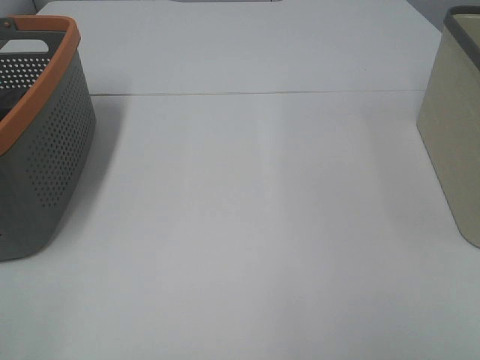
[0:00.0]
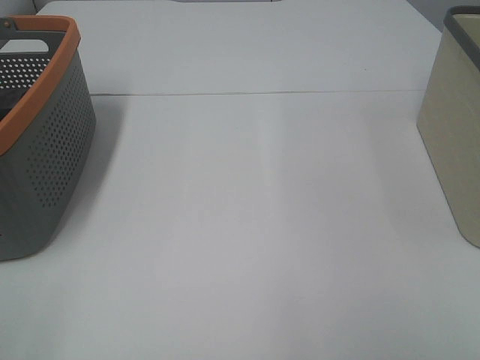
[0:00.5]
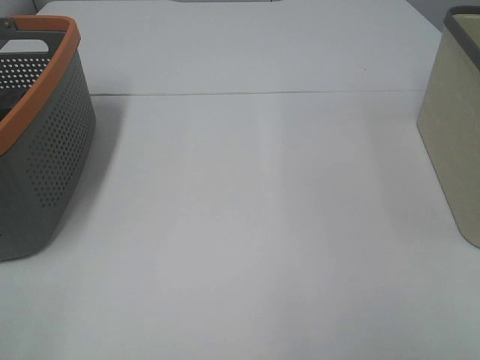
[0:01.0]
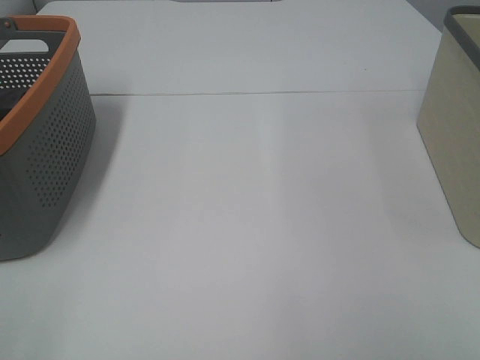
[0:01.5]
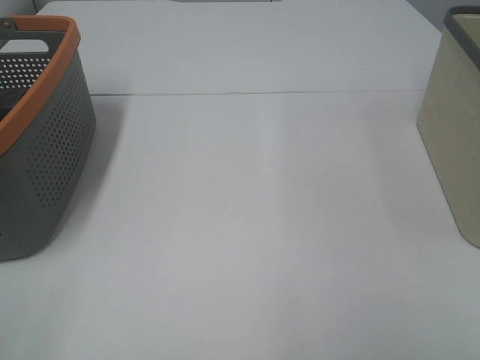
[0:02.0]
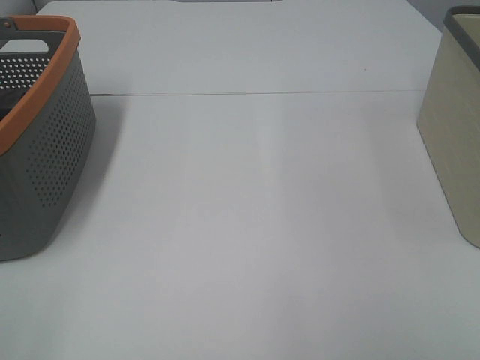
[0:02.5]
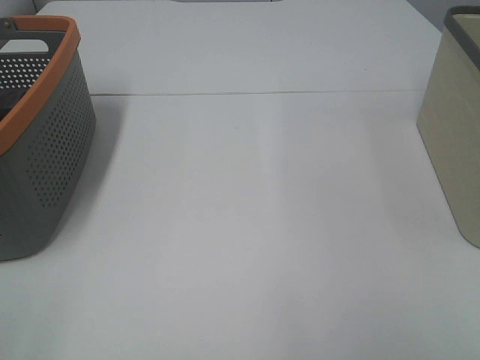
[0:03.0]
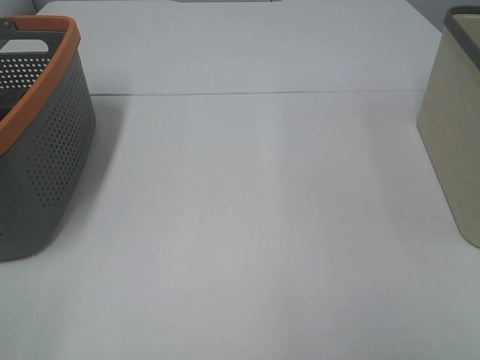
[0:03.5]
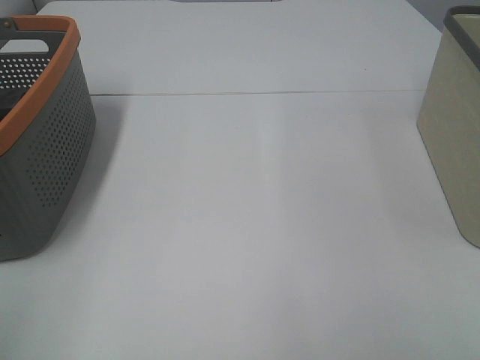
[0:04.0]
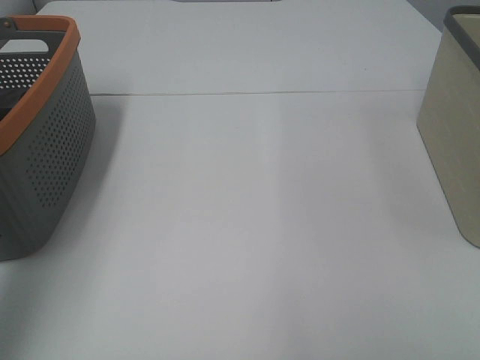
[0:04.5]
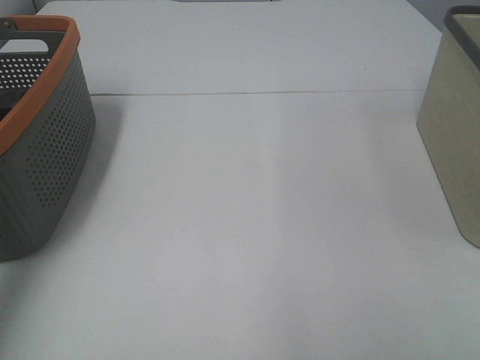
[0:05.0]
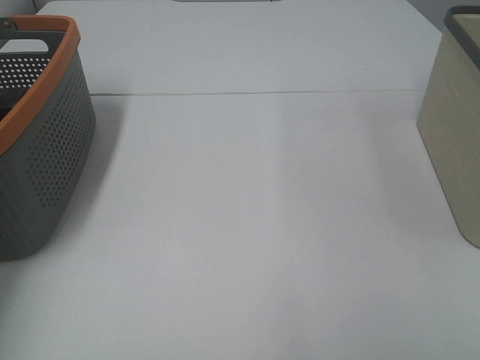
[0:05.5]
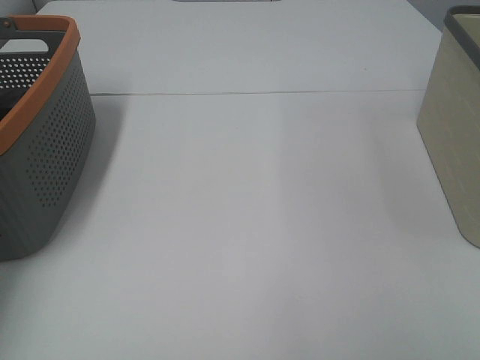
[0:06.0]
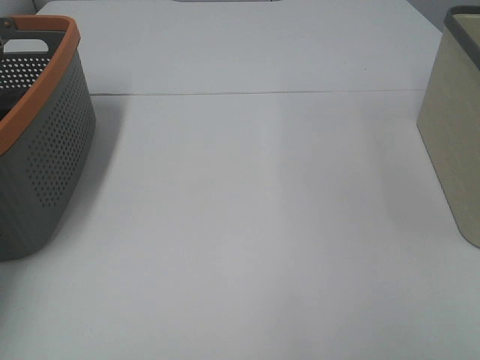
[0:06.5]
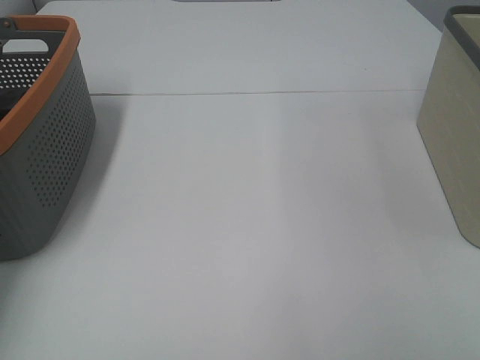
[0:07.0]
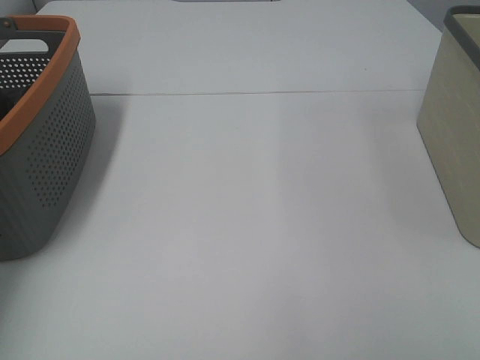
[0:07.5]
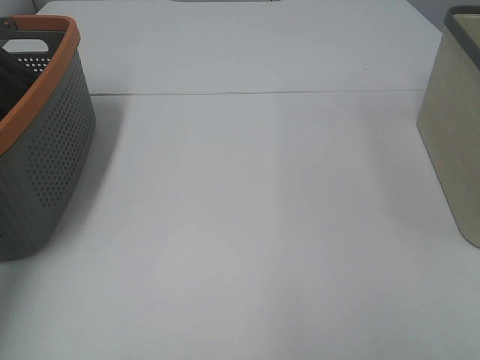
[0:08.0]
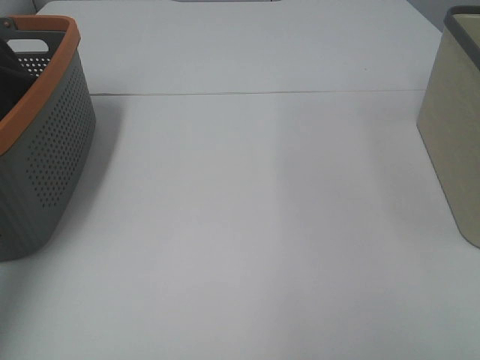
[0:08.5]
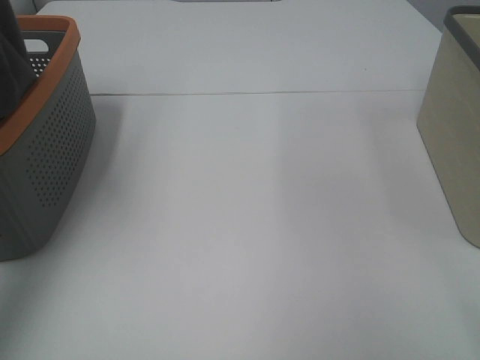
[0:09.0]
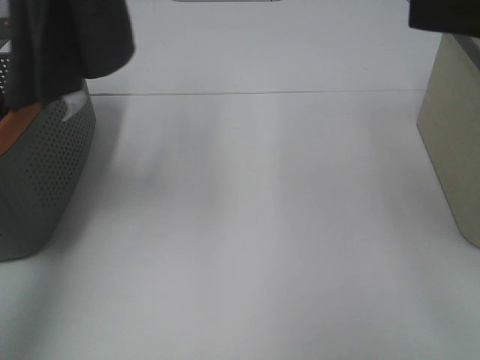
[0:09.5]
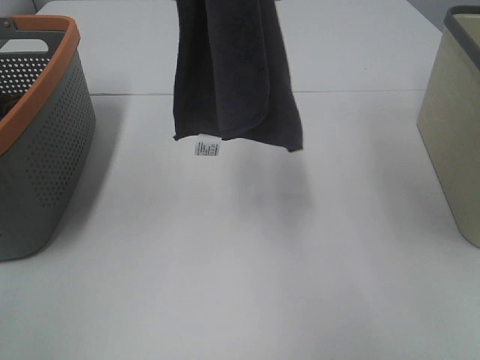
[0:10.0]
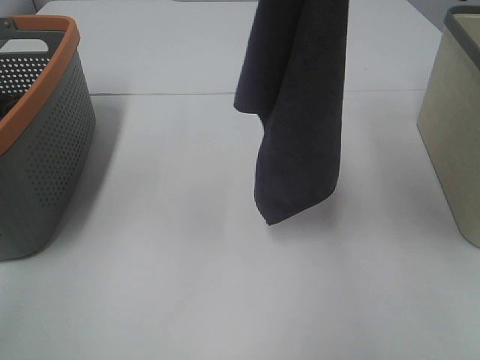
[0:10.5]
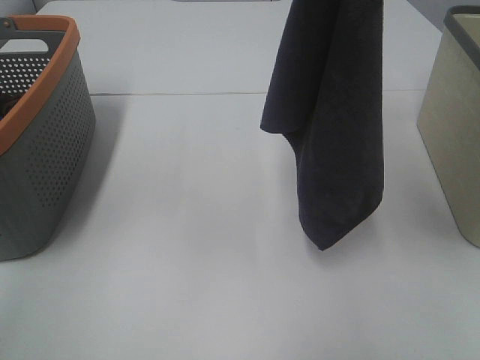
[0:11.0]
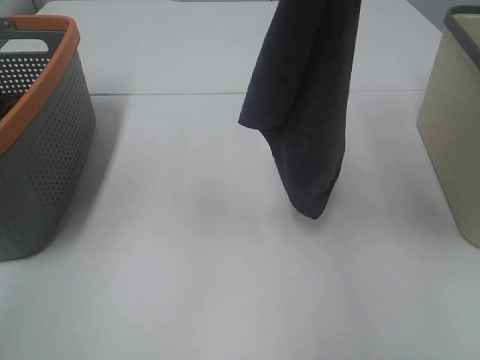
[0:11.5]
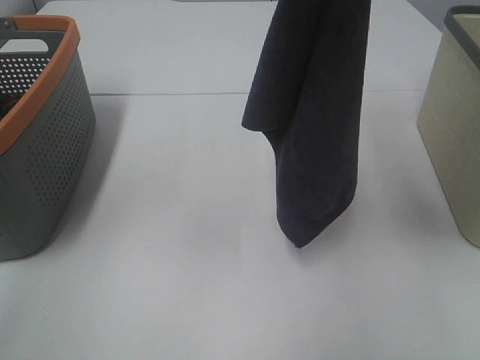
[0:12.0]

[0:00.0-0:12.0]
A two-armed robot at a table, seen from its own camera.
Task of the whole recording: Remove the towel and place it.
0:00.0 to 0:02.0: The two grippers keep their place.
0:08.0 to 0:10.0: The right gripper travels forward by approximately 25 cm; the left gripper is displaced to the right by about 25 cm.
0:10.0 to 0:12.0: The left gripper goes about 10 cm to the right.

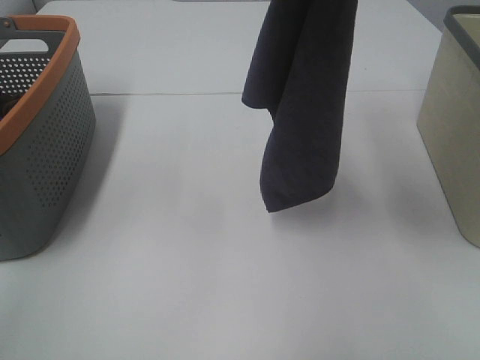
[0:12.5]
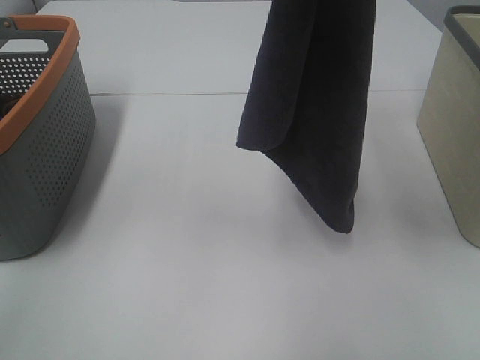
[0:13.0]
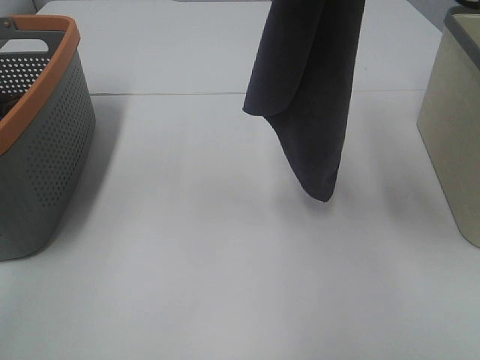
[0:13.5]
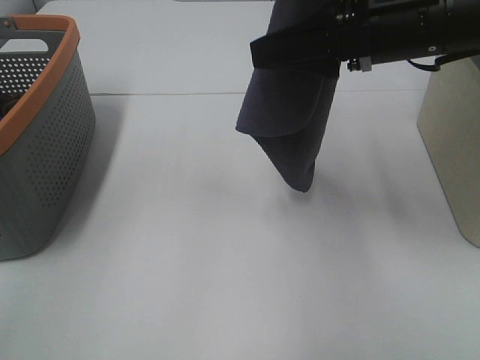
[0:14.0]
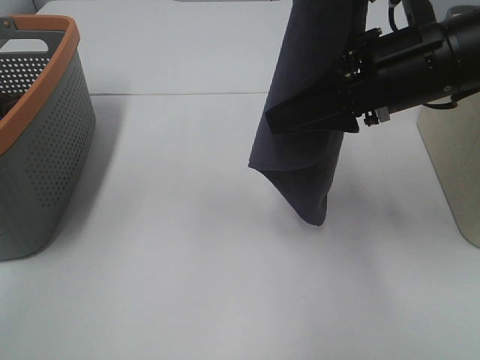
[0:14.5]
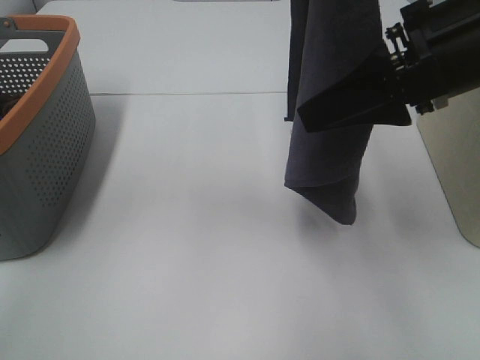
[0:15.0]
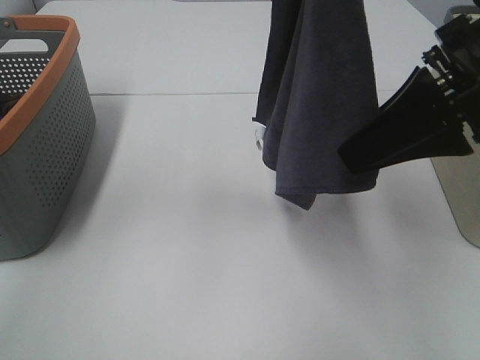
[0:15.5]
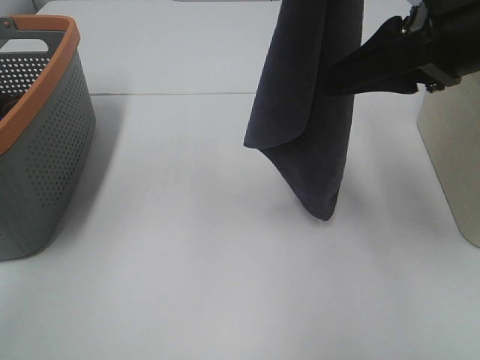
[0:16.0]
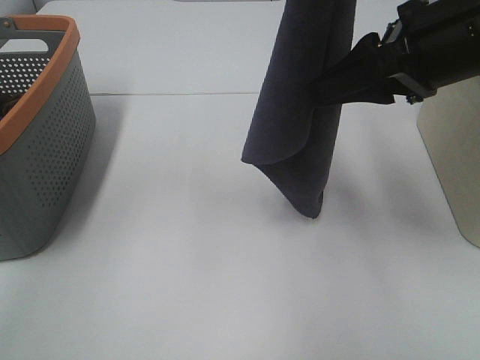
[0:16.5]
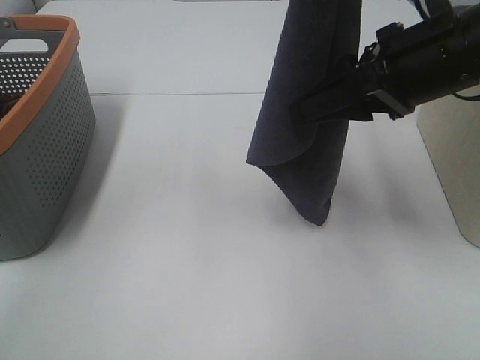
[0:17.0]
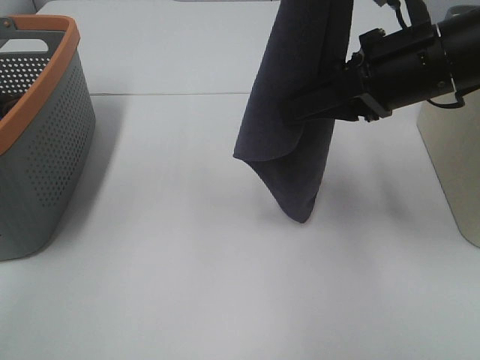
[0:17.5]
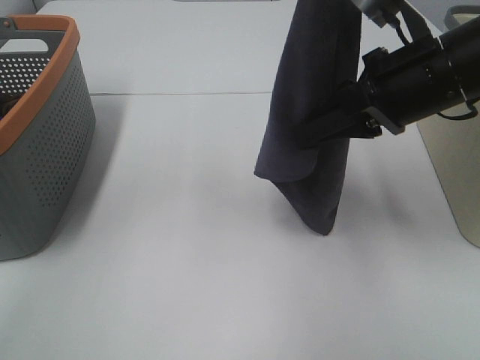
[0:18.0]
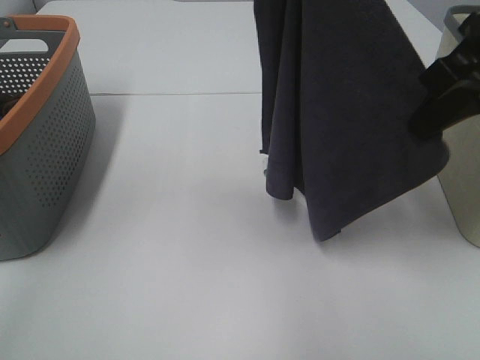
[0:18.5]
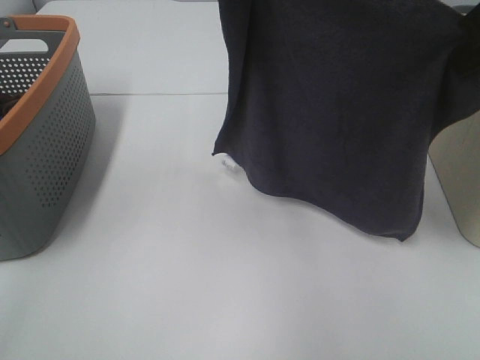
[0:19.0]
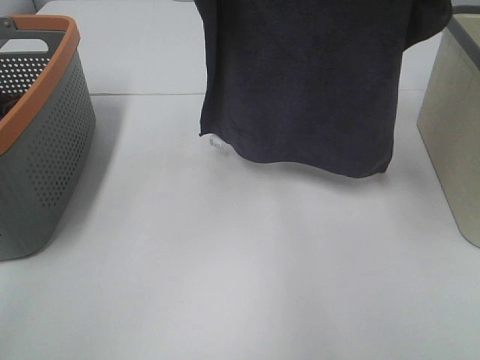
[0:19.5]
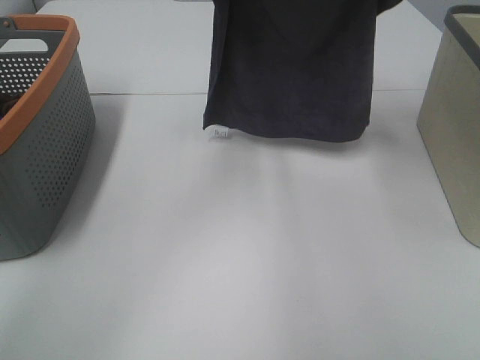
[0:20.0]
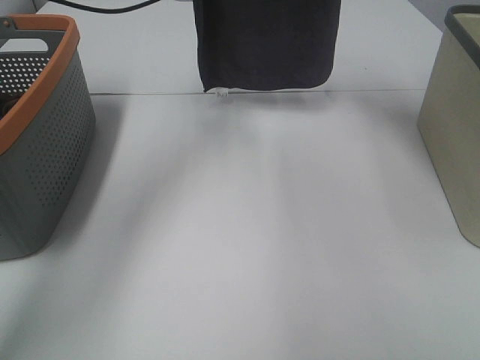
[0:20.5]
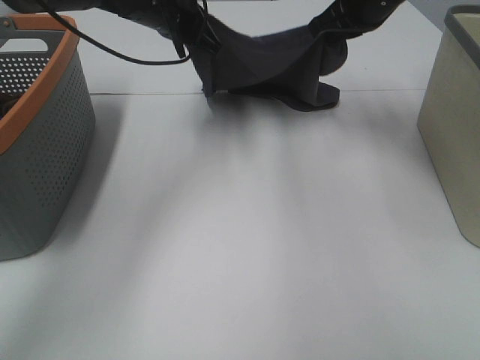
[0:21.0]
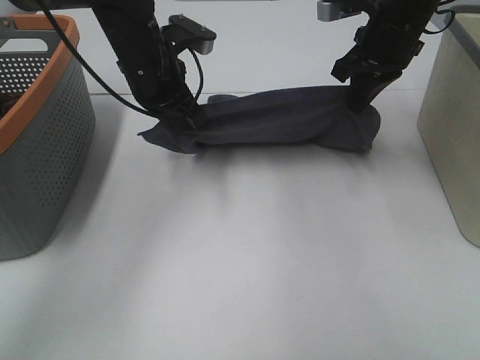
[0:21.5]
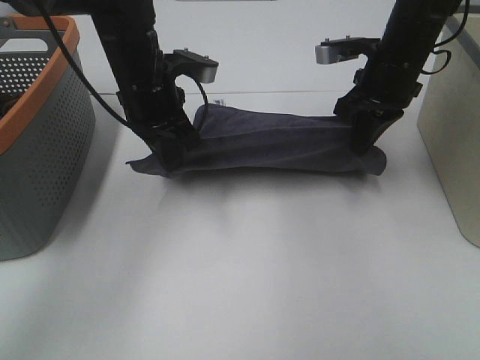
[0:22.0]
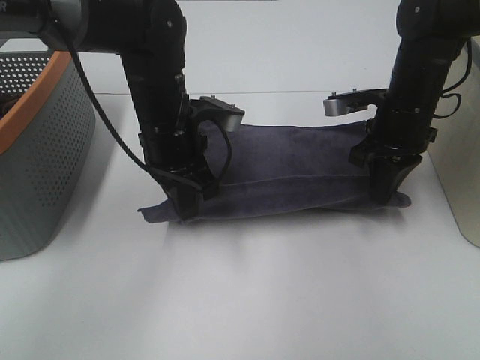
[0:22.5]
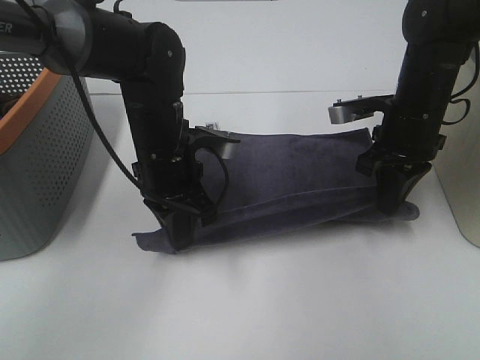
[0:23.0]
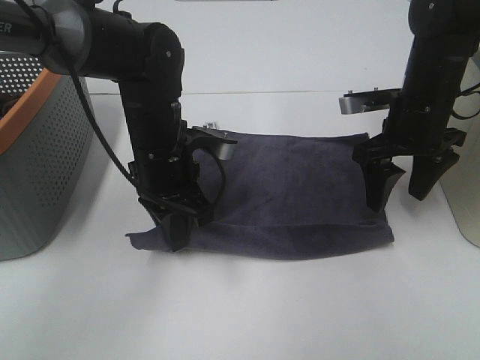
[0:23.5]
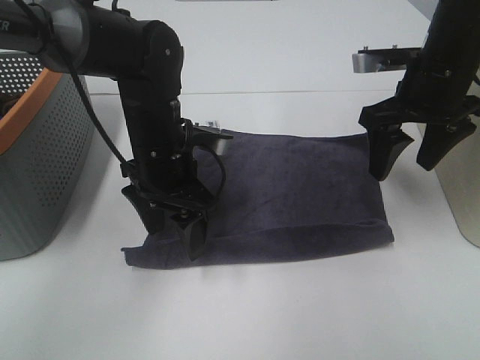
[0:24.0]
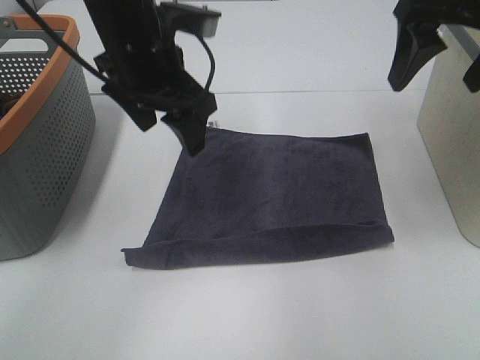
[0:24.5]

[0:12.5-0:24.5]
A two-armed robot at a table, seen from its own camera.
Task of the whole recording: Remove the towel and place it.
Step, 0:12.5 to 0:16.0: Right hand: grab a corner of the grey towel and straighten it.
Step, 0:16.5 to 0:18.5: Right hand: spread the grey towel flat on the table.
Step, 0:16.5 to 0:19.0: Left hand: spread the grey towel flat on the table.
0:12.5 to 0:14.5: The right gripper moves downward, approximately 10 cm.
0:16.5 to 0:18.5: The right gripper closes.
0:18.5 to 0:20.5: The left gripper is displaced forward, downward and to the left by roughly 20 cm. Meanwhile the right gripper moves forward, approximately 25 cm.
0:20.5 to 0:22.5: The grippers both shift downward and backward by some 20 cm.
0:22.5 to 0:24.5: The right gripper heads upward, covering approximately 20 cm, and opens up. Meanwhile the left gripper is displaced upward by approximately 10 cm, and opens its fingers.

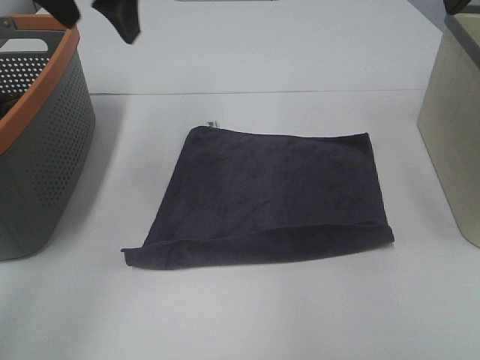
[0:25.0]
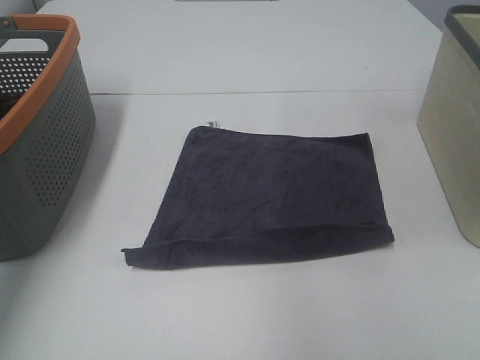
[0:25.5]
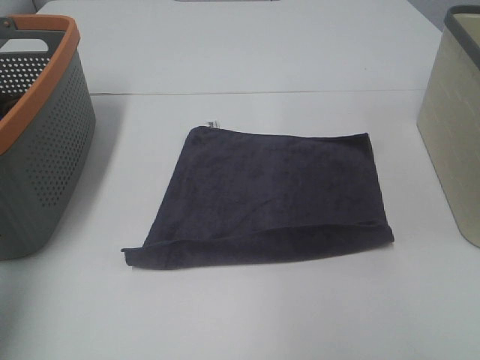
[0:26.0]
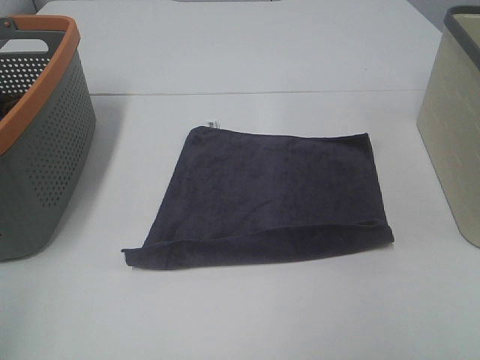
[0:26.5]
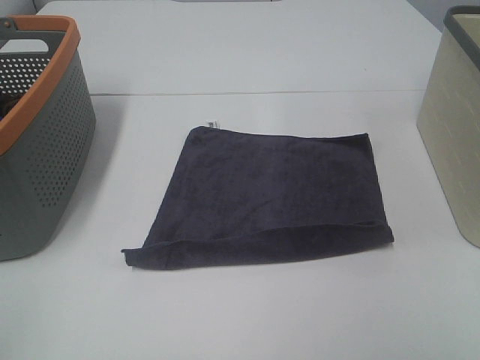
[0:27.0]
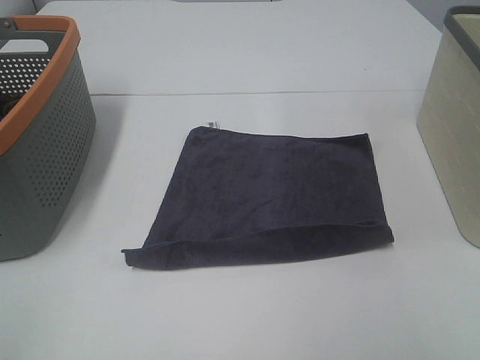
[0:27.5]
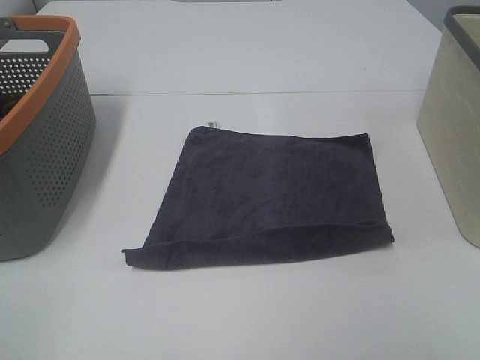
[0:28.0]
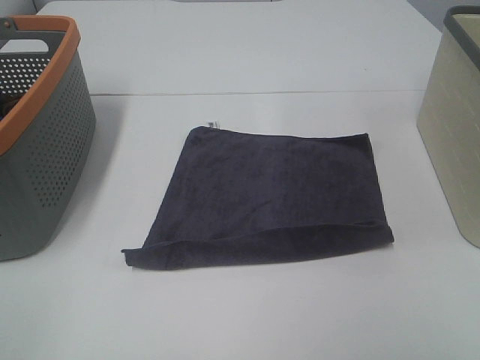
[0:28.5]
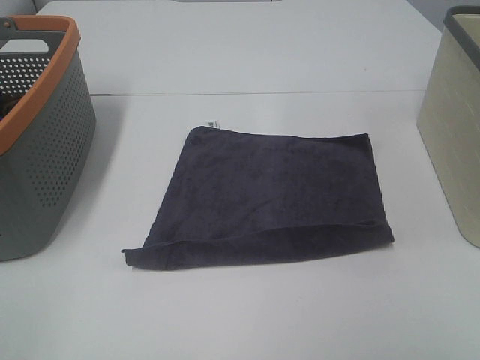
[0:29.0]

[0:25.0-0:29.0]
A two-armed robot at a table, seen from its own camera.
Task of the whole recording: Remove the towel and place it.
0:25.0 to 0:27.0: The grippers both shift backward by about 35 cm.
